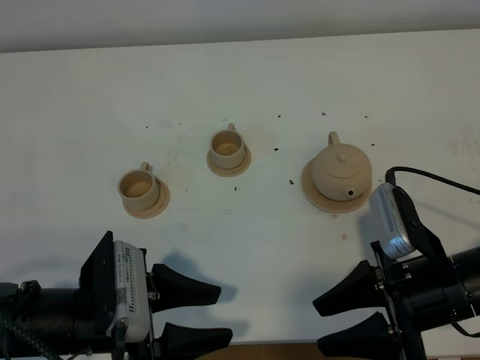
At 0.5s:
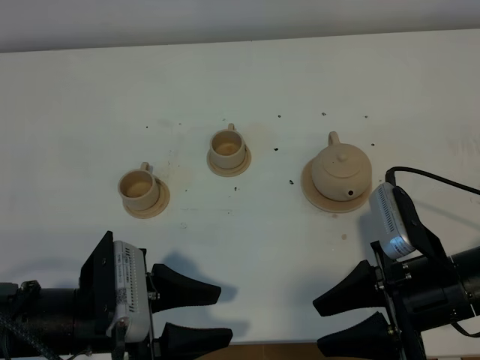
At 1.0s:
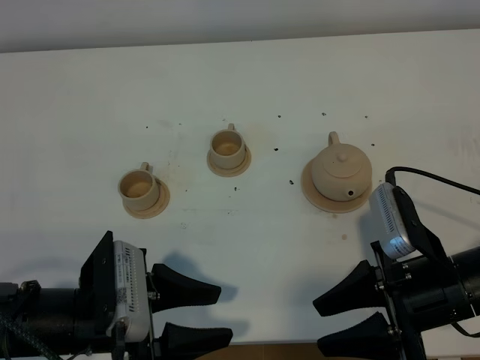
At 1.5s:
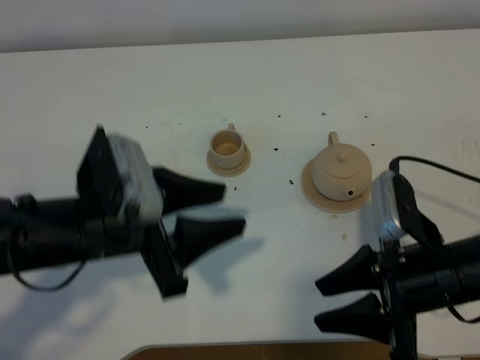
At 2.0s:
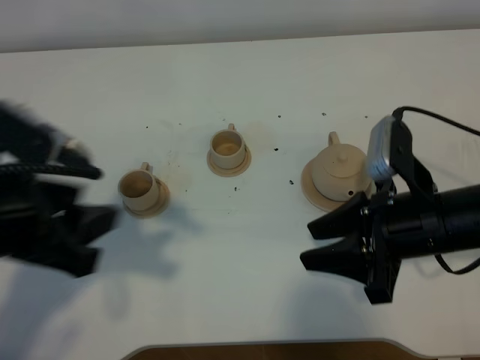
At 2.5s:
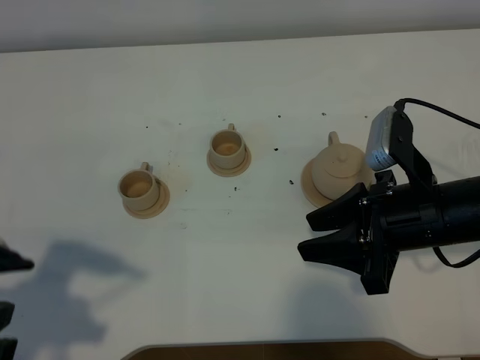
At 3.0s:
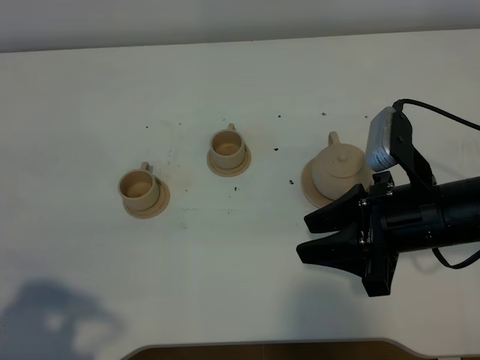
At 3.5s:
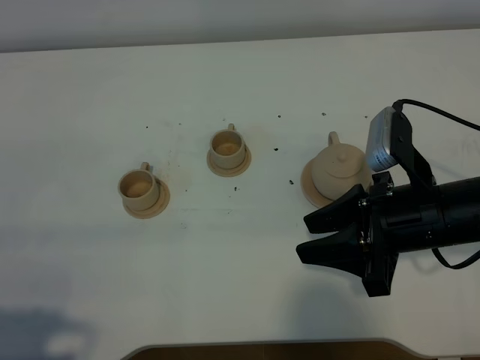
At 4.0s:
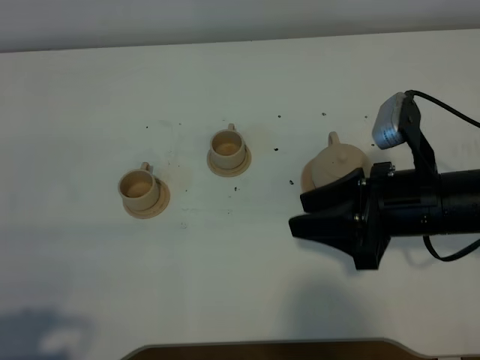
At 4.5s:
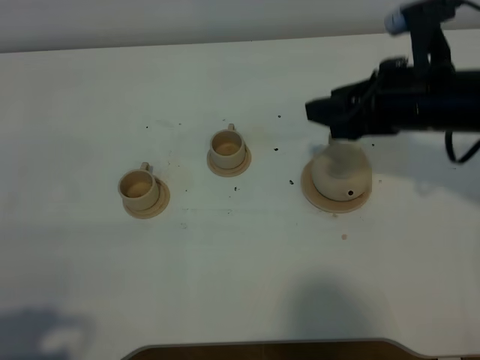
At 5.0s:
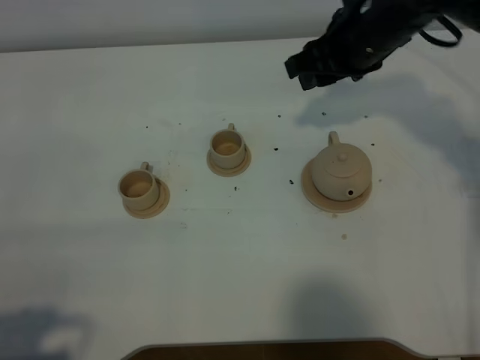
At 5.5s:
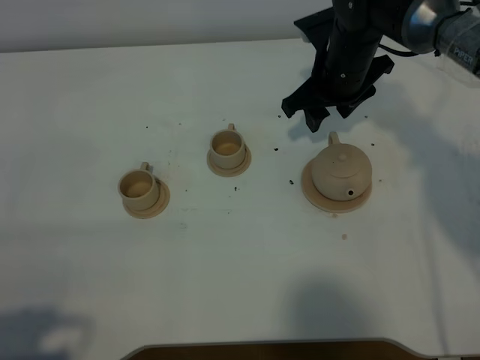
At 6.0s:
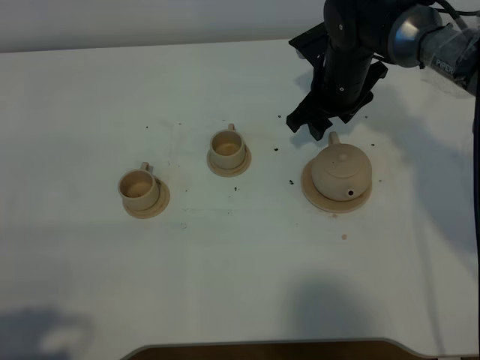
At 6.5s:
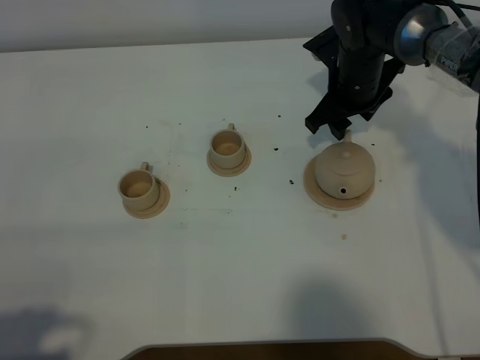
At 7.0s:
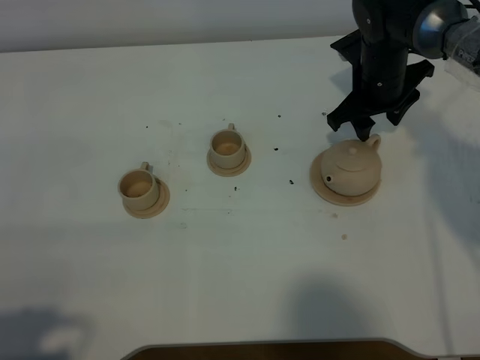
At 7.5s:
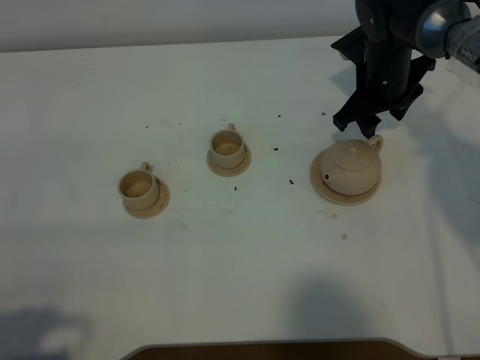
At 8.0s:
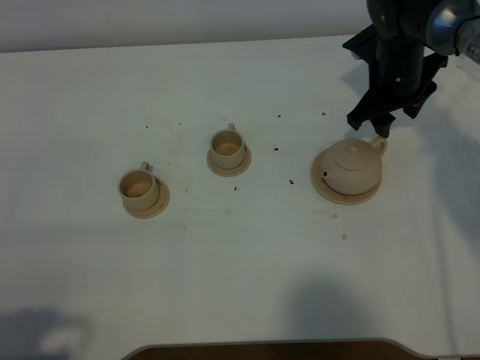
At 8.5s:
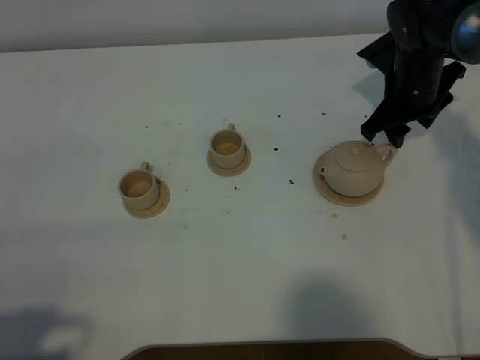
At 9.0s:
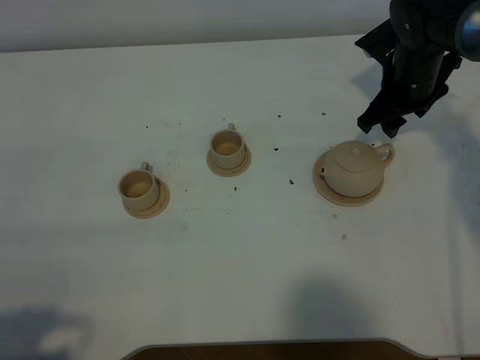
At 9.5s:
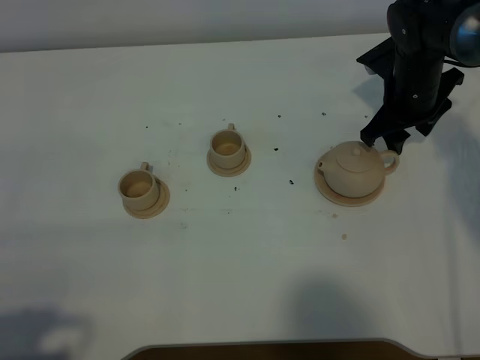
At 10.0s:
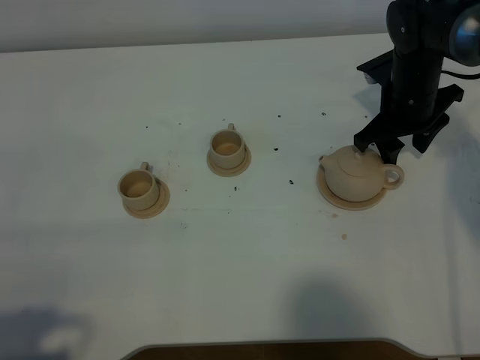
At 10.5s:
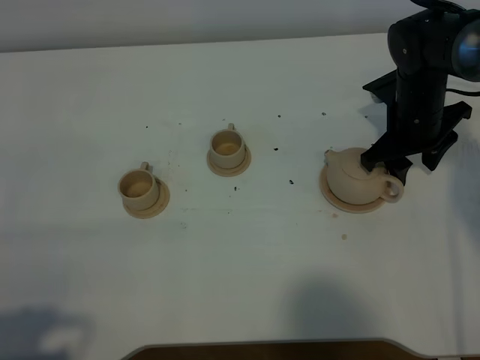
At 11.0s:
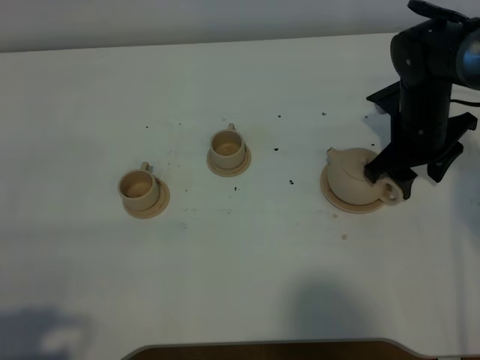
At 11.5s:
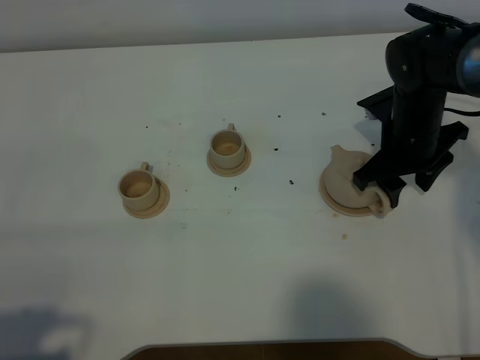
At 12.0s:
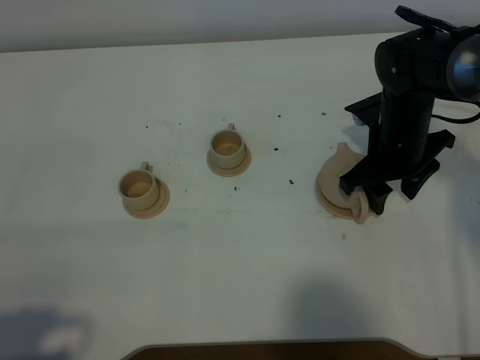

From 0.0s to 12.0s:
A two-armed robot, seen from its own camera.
Task of the whole recording: grasp the brown teapot and pour the tea into the two brown teacups one by one, put the brown teapot back in its original place.
From 0.0s to 2.0s: The left gripper is displaced upward by some 15 cm, while the right gripper shifts roughly 5 cm forward.
From 2.0s to 4.0s: The left gripper heads backward and to the left, covering some 20 cm.
From 4.0s to 6.0s: The right gripper moves forward, about 25 cm.
From 6.0s to 8.0s: The right gripper goes roughly 5 cm to the right.
From 8.0s to 10.0s: There are only small adjustments of the grippers.
From 10.0s to 12.0s: The right gripper heads backward, covering some 5 cm.

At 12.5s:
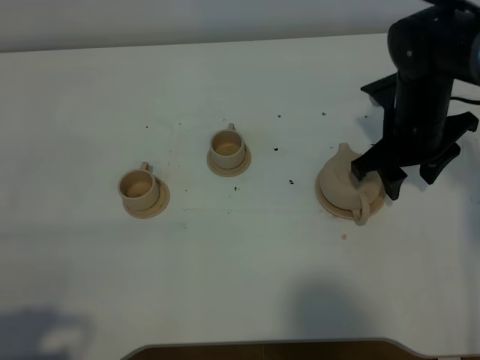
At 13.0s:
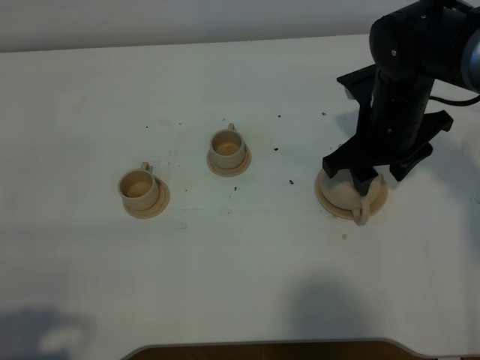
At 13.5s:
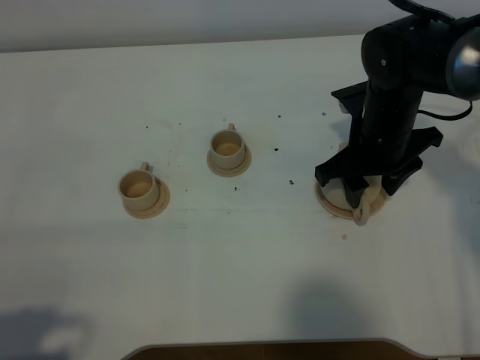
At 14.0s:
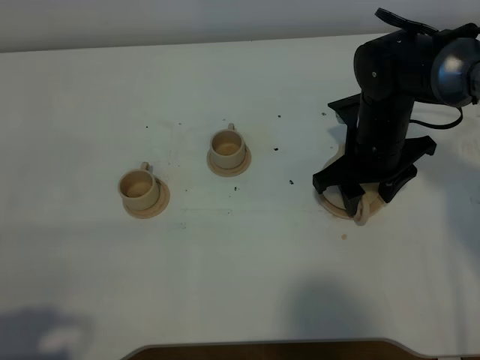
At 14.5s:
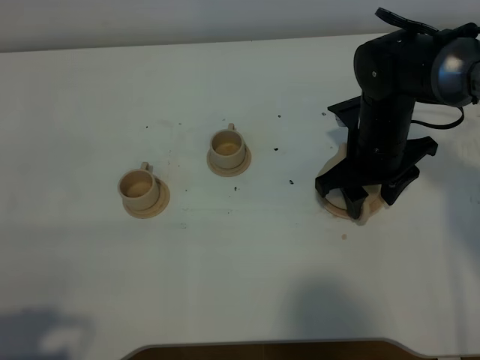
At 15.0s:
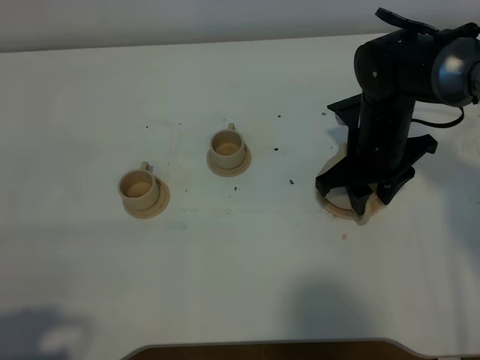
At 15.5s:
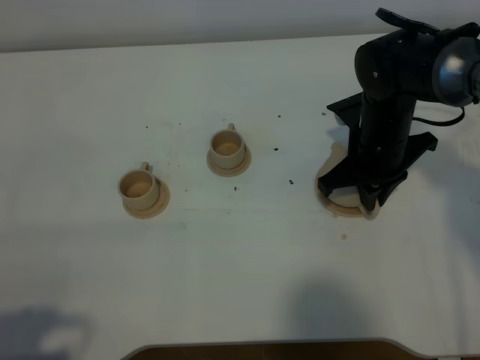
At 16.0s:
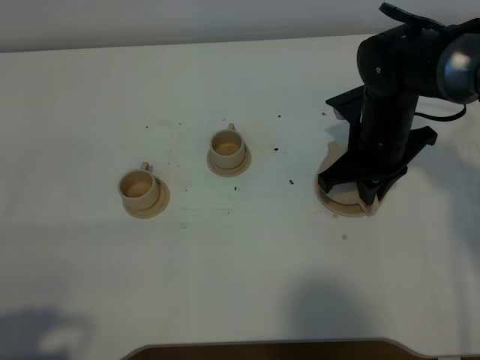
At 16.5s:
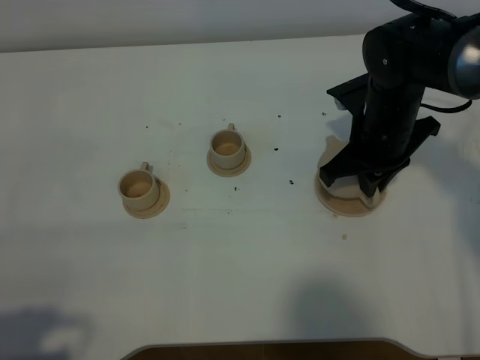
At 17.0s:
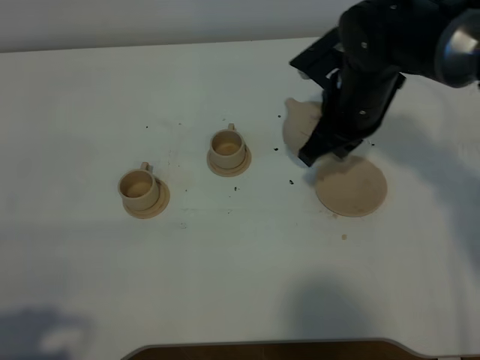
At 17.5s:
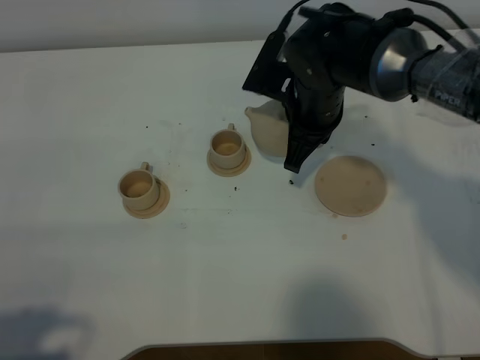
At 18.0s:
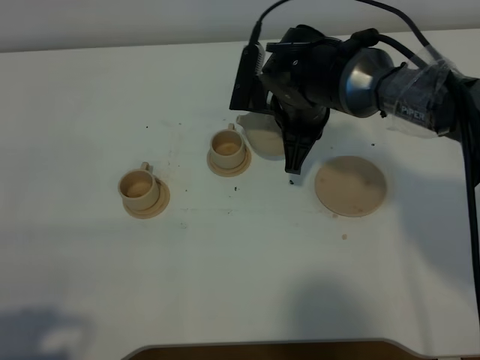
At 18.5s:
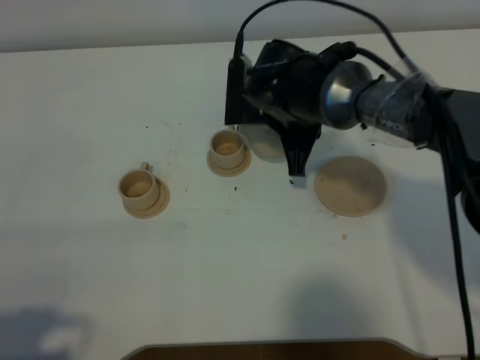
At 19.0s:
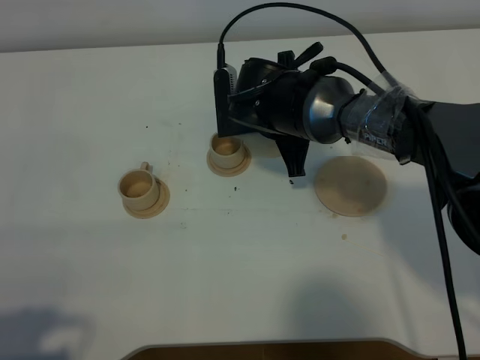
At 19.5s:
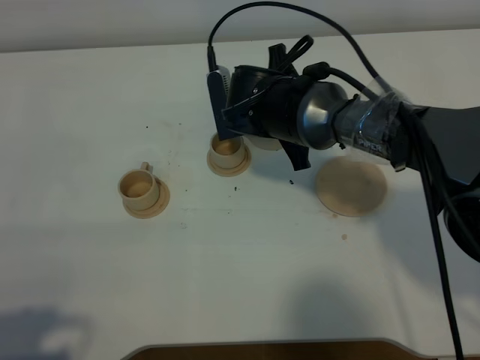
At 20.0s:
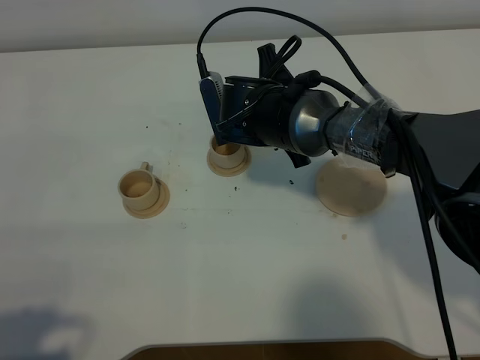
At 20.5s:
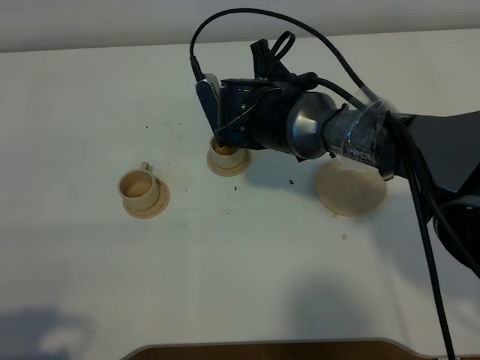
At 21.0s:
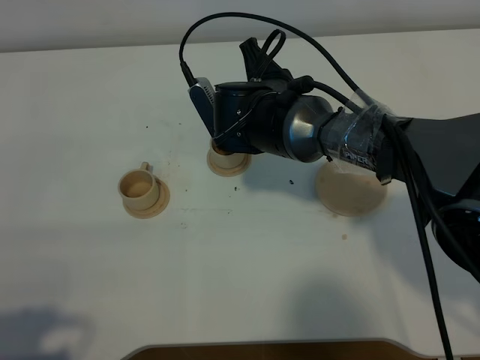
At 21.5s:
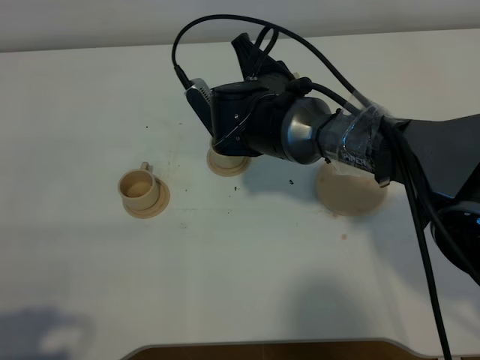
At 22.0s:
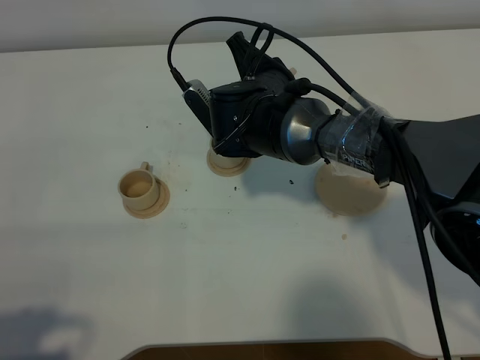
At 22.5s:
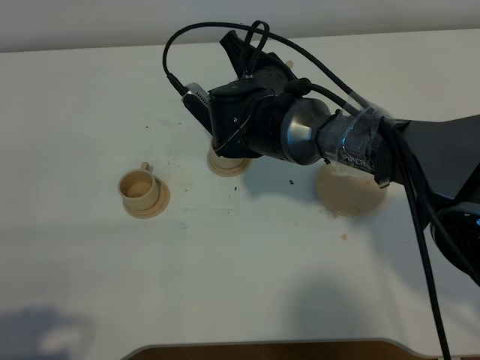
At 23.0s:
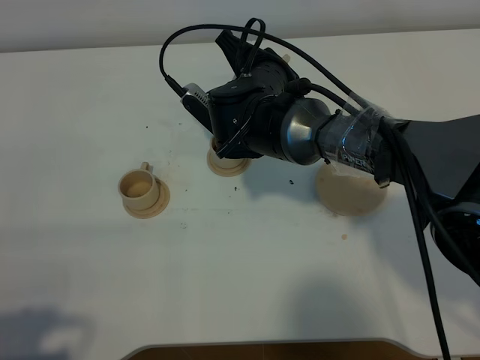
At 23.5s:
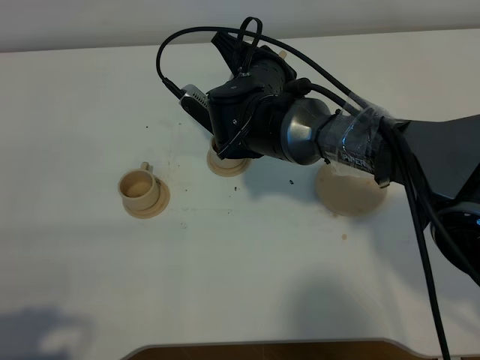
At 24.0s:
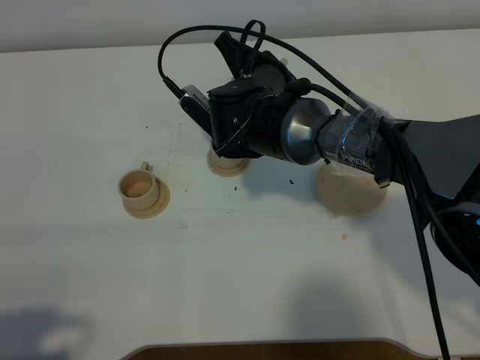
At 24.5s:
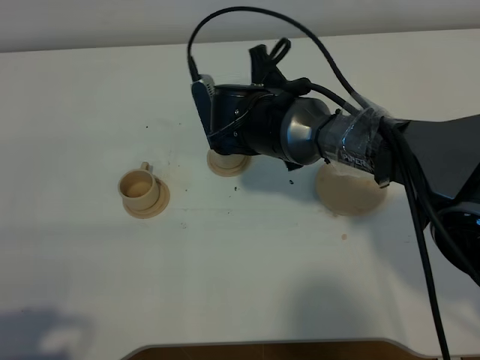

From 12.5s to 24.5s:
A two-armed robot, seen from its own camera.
Task of the whole recording: grasp the brown teapot and pour the tea into the two brown teacups one by one, put the brown teapot back in its original place.
Step, from 12.5s to 16.0s: Pick up the teapot with the right gripper.
From 12.5s to 14.5s: The grippers make only small movements.
From 14.5s to 16.5s: The right gripper closes up.
From 16.5s to 18.5s: The right gripper goes about 10 cm to the left.

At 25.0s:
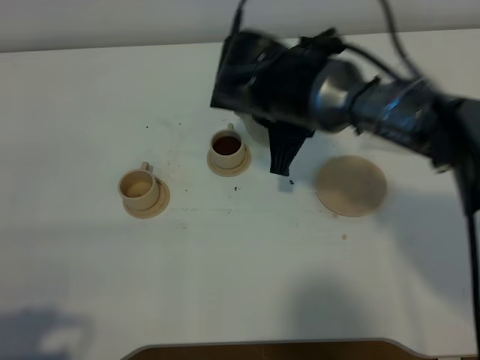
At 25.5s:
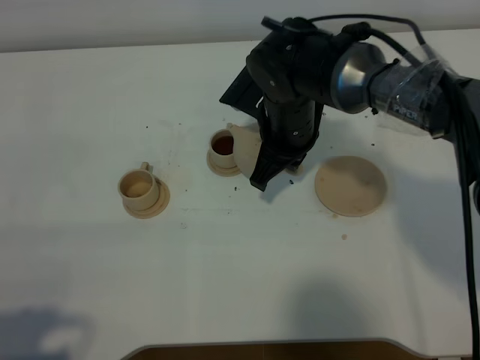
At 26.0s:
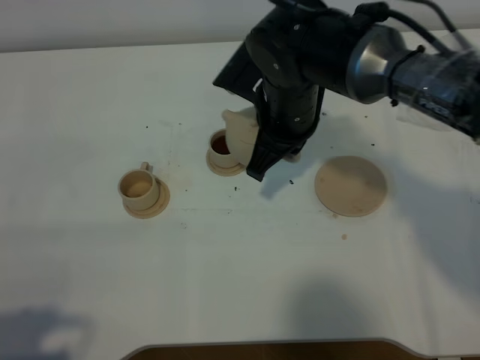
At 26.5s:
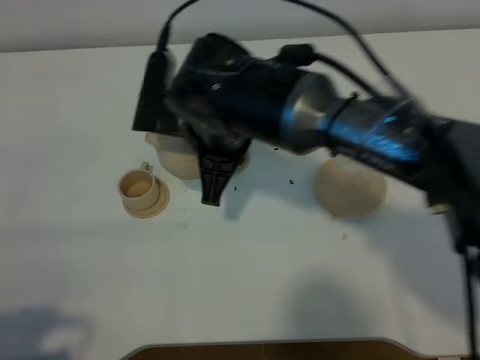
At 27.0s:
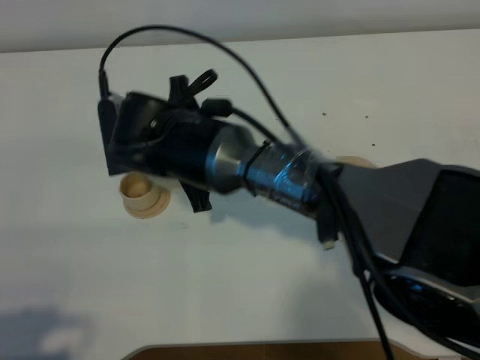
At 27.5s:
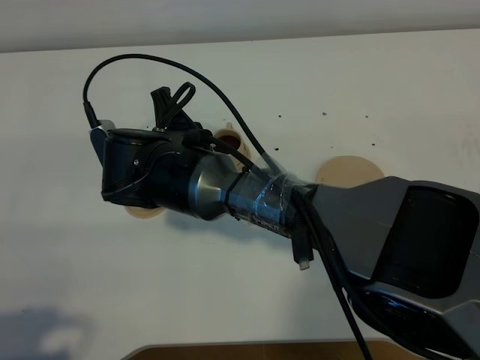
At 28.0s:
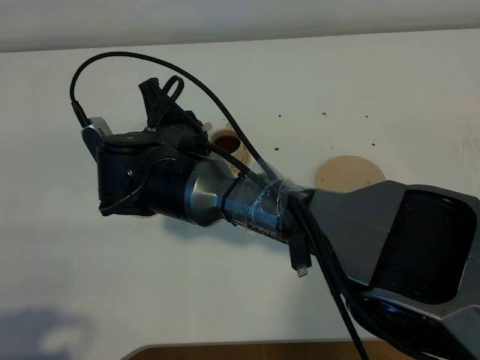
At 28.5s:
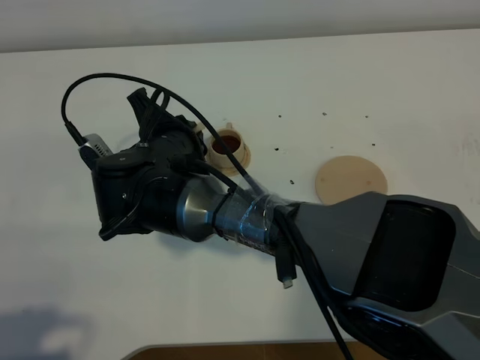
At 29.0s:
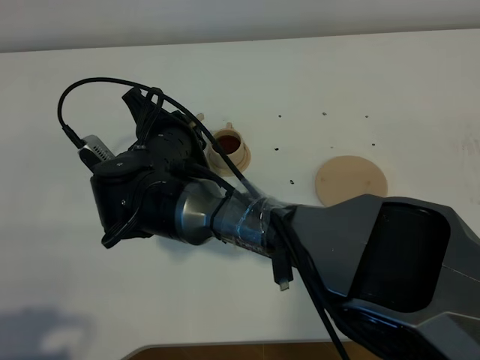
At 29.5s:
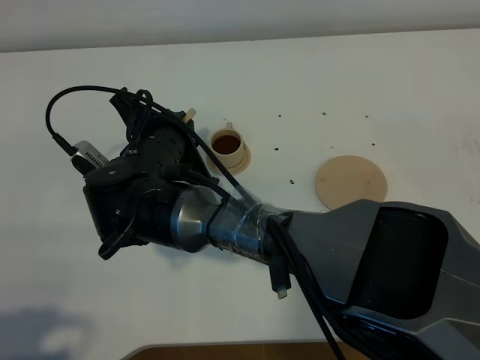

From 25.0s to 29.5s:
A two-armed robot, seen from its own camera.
Task of the whole recording: grasp the brown teapot and pour the tea into the two brown teacups one by one, put the brown teapot back in its original place.
From 25.0s to 27.0s: The right gripper moves to the left, approximately 10 cm.
